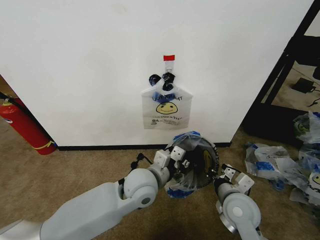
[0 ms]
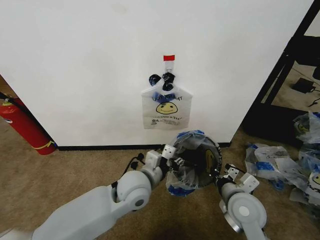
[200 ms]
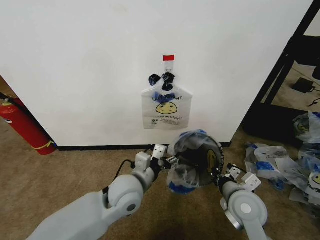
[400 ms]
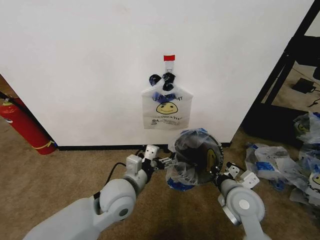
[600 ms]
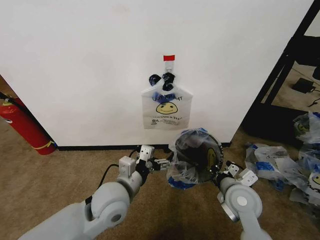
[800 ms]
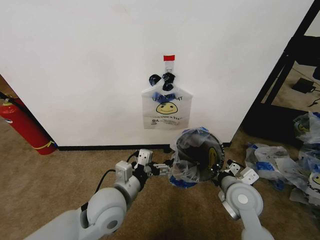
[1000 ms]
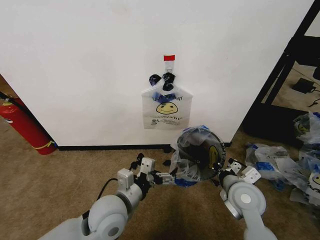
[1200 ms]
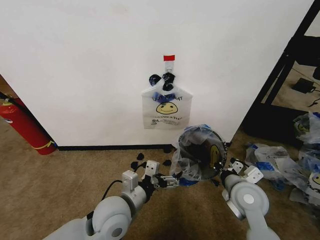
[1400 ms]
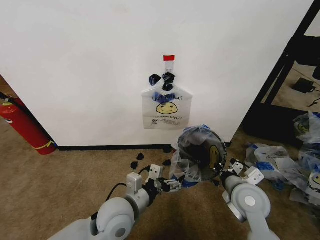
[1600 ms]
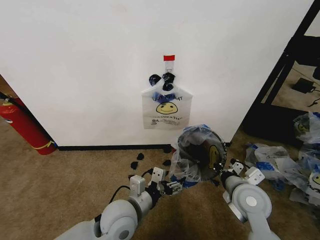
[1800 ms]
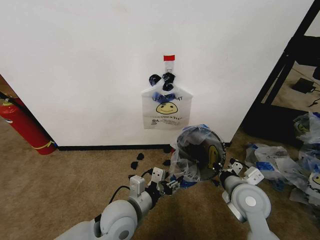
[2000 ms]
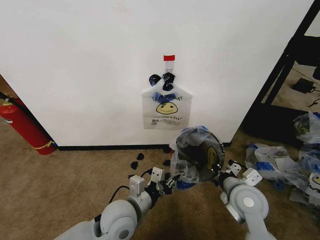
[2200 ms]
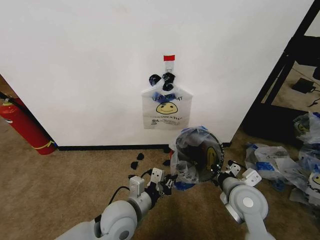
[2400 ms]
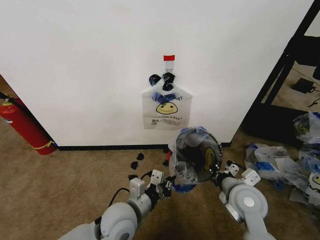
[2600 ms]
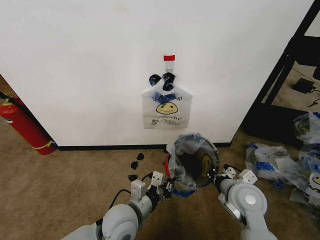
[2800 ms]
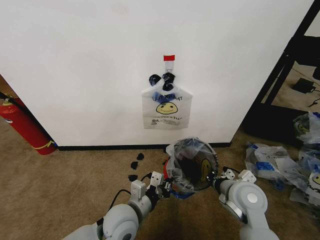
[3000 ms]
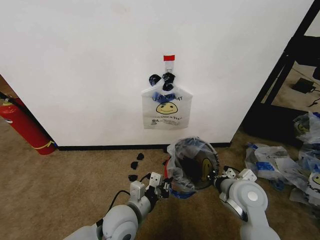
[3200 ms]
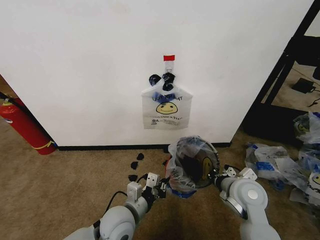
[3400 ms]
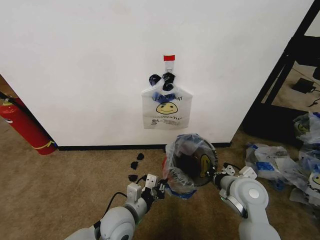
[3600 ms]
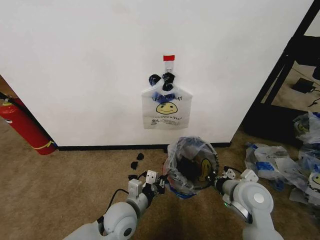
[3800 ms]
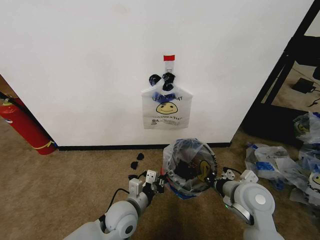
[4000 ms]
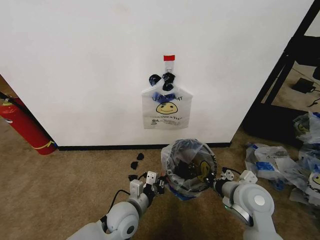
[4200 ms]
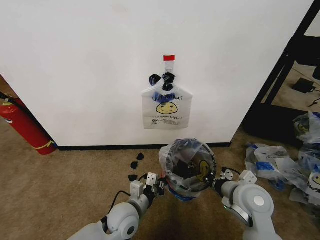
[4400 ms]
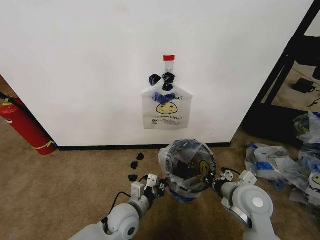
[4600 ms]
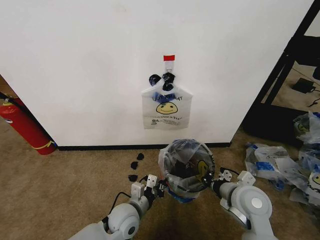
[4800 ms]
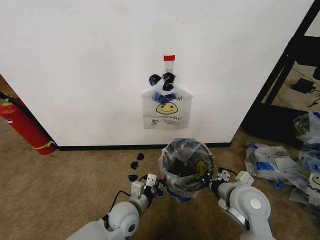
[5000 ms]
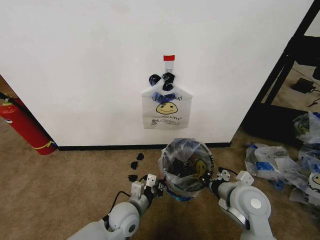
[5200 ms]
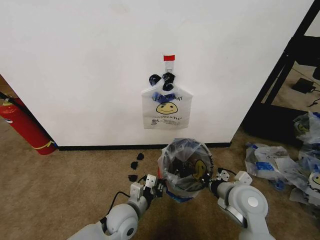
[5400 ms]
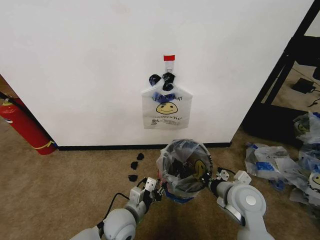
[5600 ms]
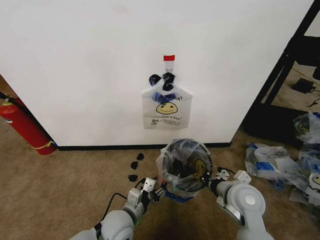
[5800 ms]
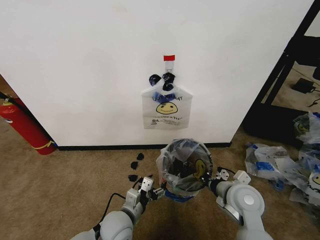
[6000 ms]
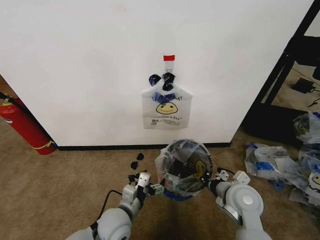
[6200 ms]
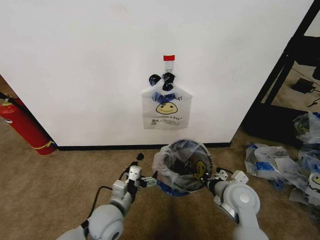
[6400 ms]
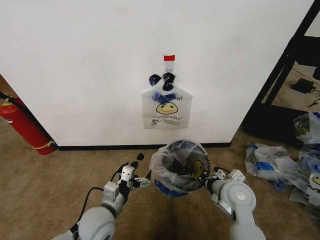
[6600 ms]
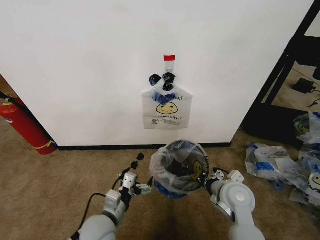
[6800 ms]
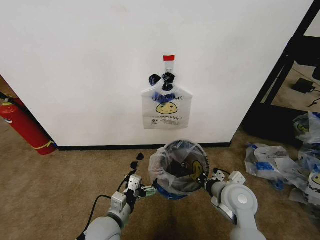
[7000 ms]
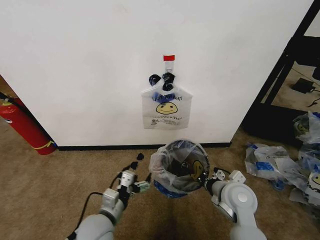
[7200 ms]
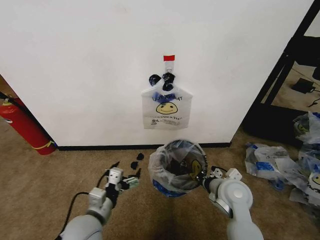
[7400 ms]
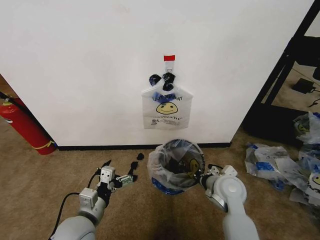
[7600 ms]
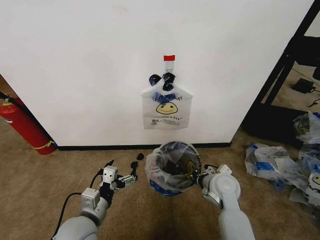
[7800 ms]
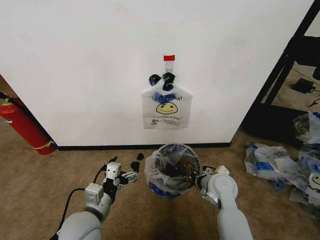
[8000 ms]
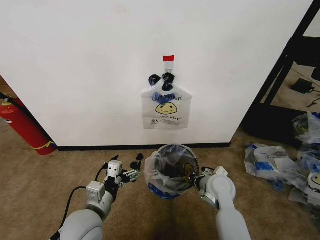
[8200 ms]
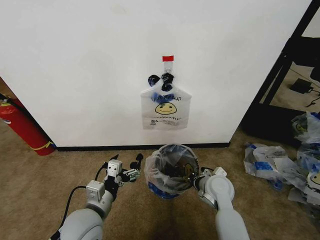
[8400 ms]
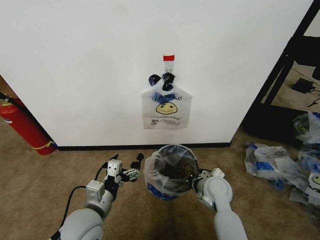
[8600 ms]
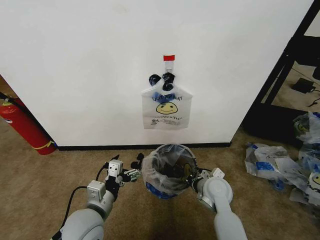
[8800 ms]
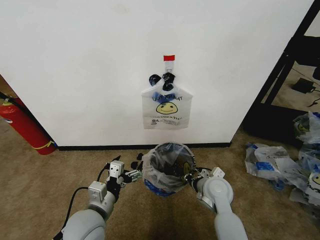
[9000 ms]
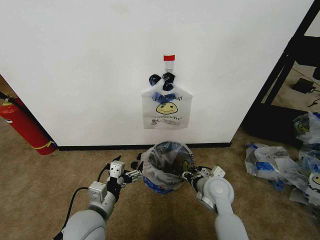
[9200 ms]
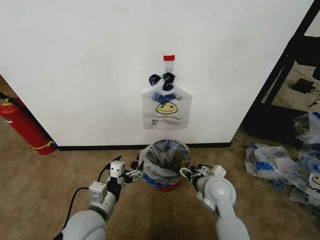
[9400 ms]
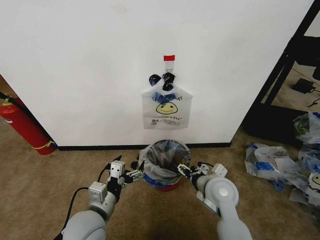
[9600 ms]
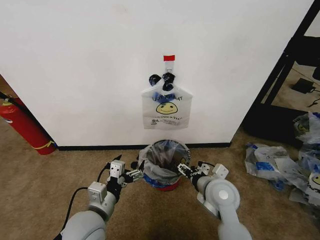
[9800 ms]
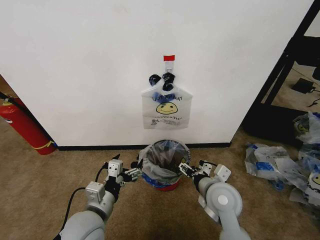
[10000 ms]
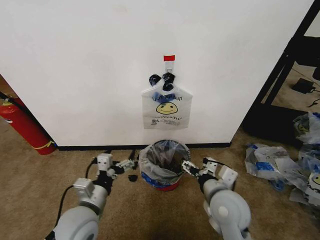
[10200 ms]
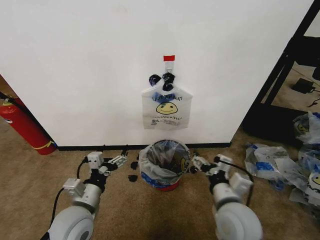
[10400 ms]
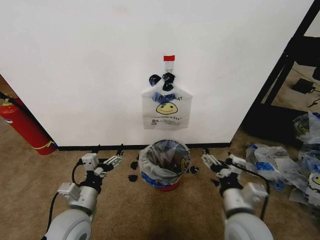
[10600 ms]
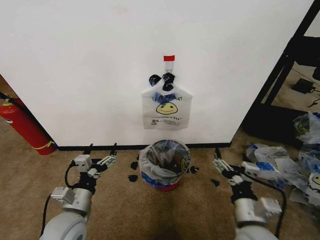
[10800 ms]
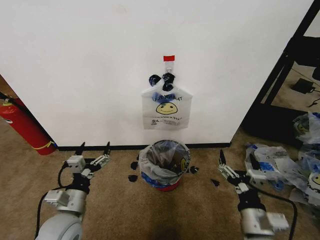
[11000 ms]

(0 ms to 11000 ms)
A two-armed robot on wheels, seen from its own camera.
Task of the whole recording: Pick up the garbage bag from the wall and place it over the trash bin.
0 ms - 1600 ms: The left gripper heads backward and to the left, covering some 10 cm, and opens up.
1600 ms - 3200 ms: The left gripper closes.
3200 ms - 4800 ms: The left gripper moves downward, some 5 cm.
4800 ms - 6200 ms: The left gripper opens.
6200 ms - 7800 ms: The left gripper shifts roughly 10 cm to the left and upward. Meanwhile the right gripper goes some 5 cm forward.
7800 ms - 9400 ms: The right gripper opens.
9400 ms - 11000 ms: The left gripper goes roughly 10 cm to the left; the right gripper is displaced backward by approximately 15 cm.

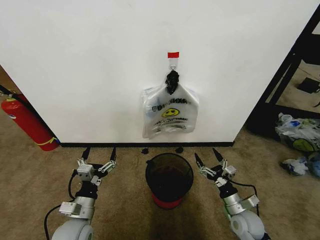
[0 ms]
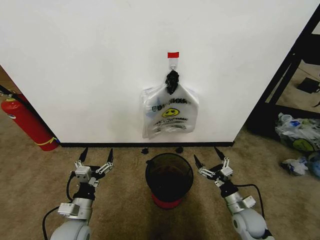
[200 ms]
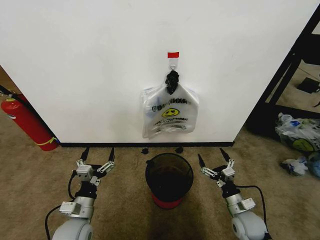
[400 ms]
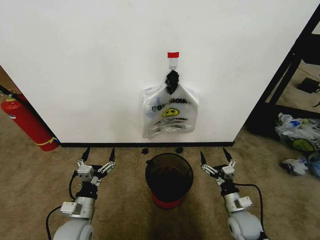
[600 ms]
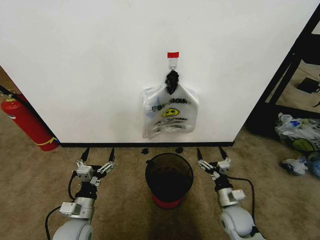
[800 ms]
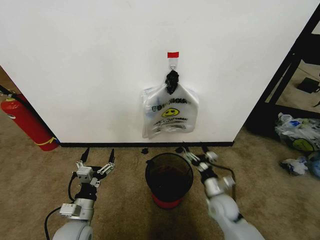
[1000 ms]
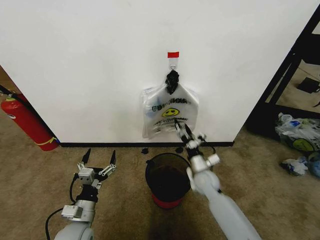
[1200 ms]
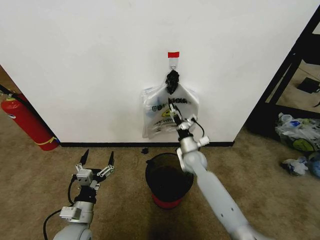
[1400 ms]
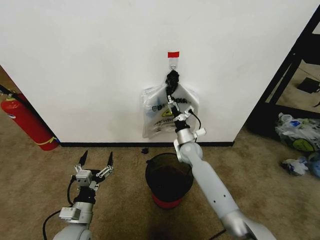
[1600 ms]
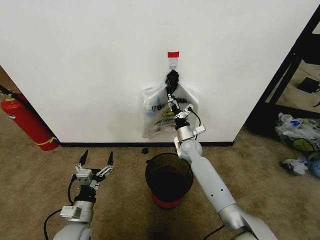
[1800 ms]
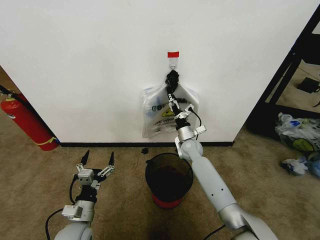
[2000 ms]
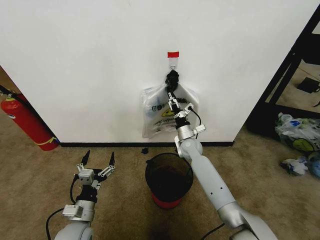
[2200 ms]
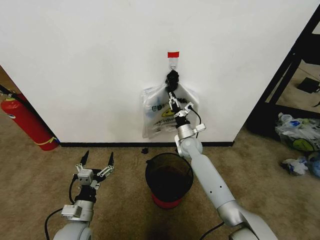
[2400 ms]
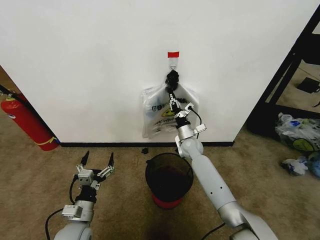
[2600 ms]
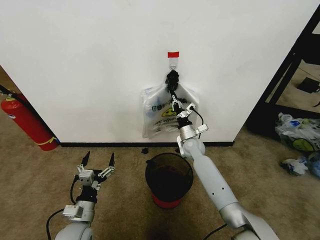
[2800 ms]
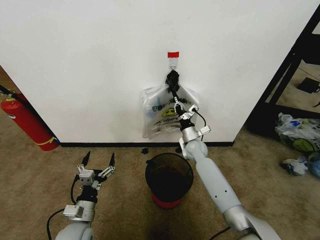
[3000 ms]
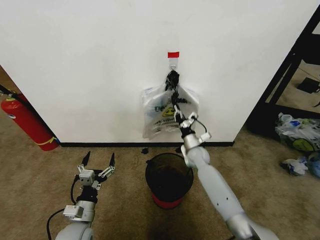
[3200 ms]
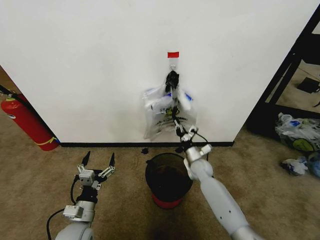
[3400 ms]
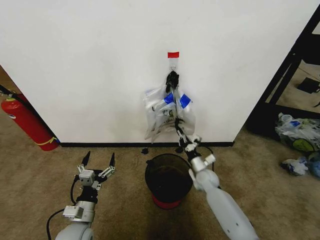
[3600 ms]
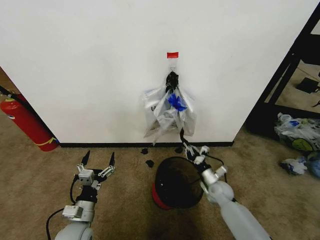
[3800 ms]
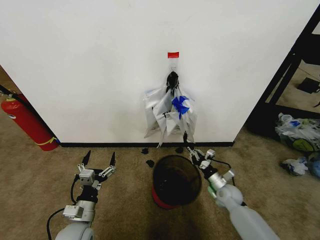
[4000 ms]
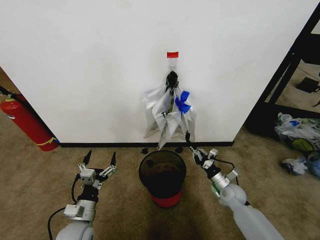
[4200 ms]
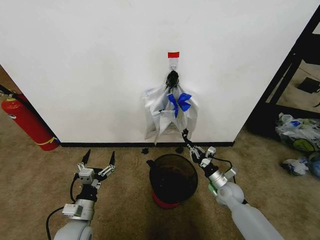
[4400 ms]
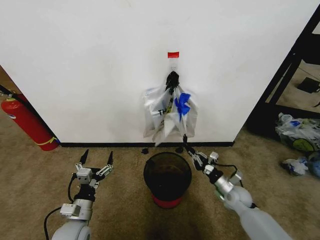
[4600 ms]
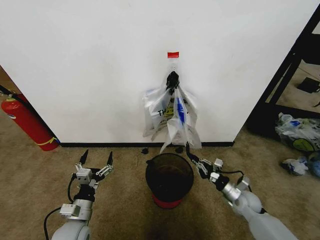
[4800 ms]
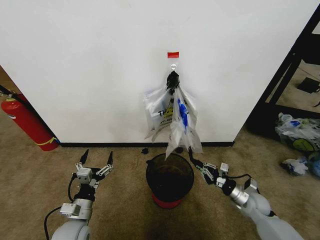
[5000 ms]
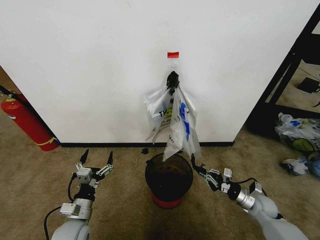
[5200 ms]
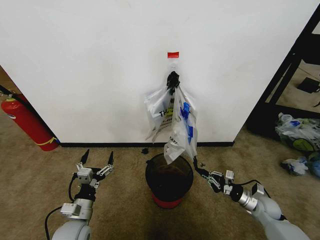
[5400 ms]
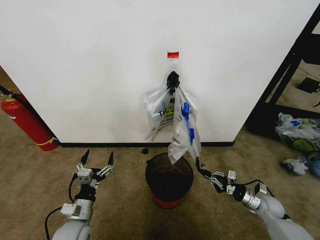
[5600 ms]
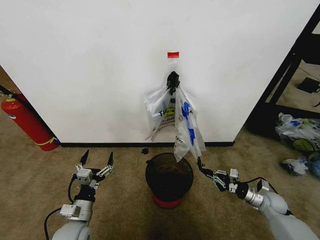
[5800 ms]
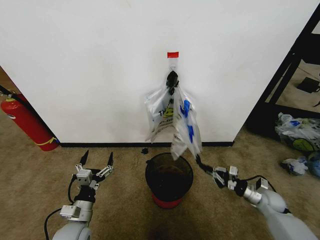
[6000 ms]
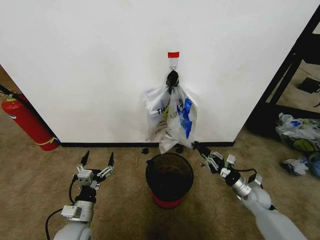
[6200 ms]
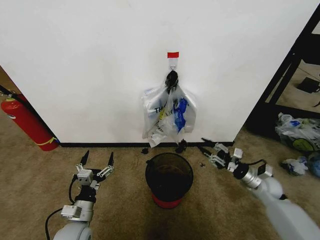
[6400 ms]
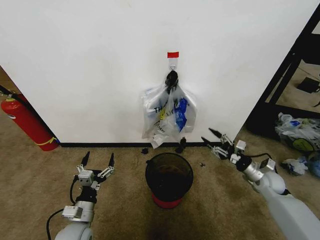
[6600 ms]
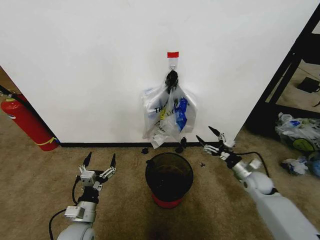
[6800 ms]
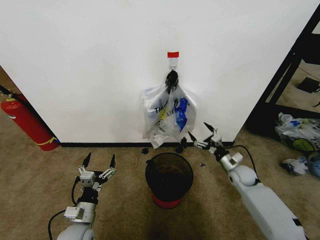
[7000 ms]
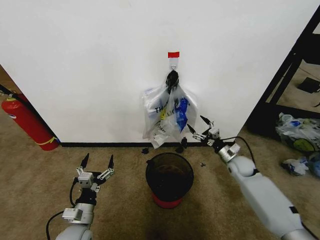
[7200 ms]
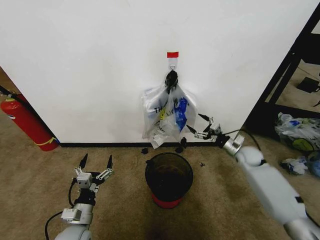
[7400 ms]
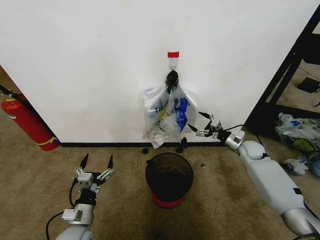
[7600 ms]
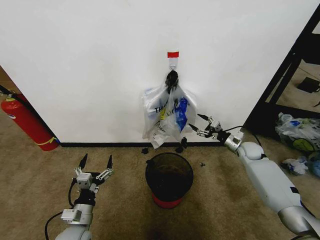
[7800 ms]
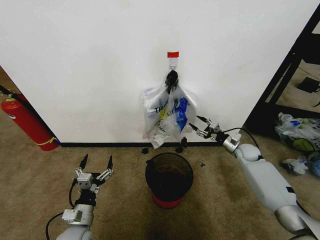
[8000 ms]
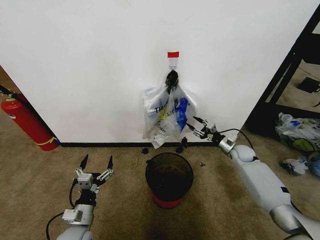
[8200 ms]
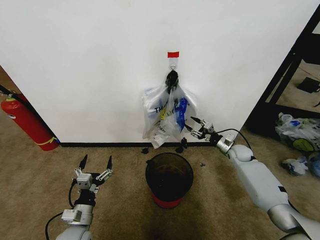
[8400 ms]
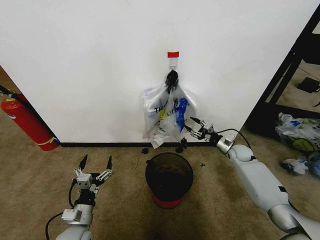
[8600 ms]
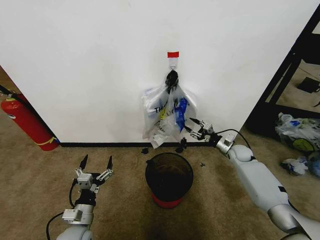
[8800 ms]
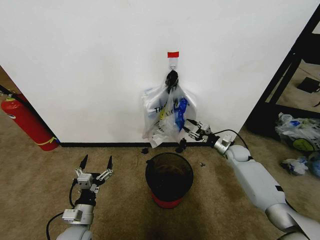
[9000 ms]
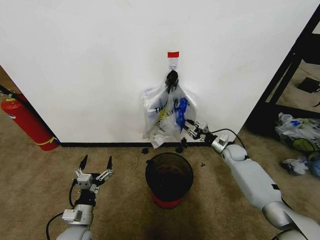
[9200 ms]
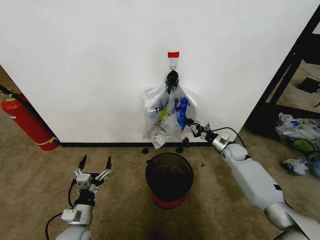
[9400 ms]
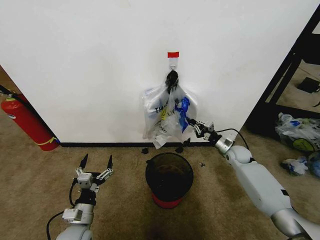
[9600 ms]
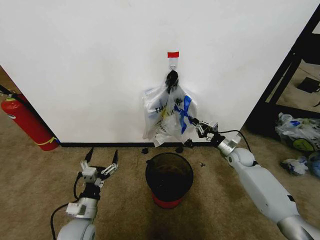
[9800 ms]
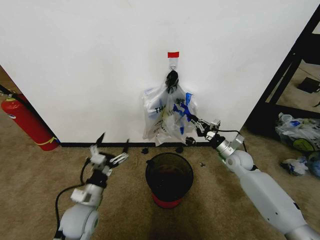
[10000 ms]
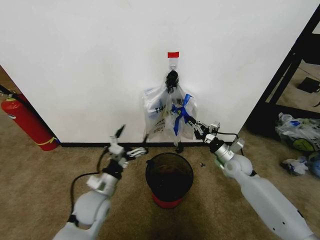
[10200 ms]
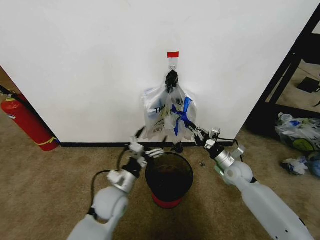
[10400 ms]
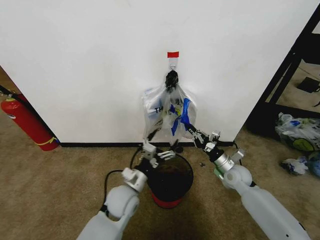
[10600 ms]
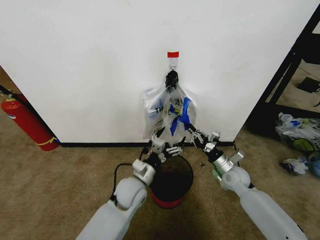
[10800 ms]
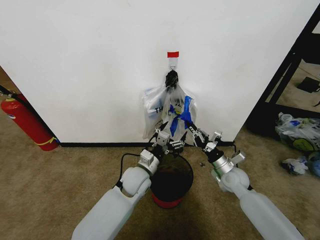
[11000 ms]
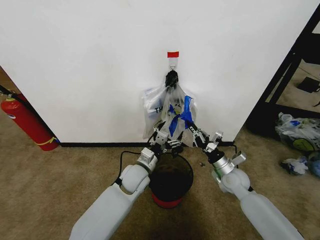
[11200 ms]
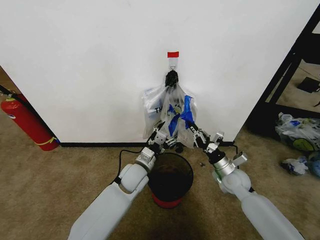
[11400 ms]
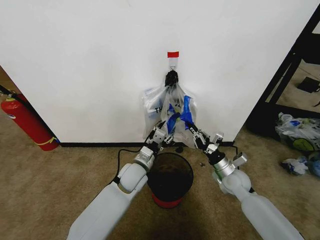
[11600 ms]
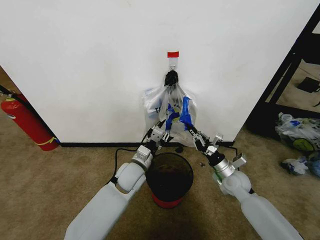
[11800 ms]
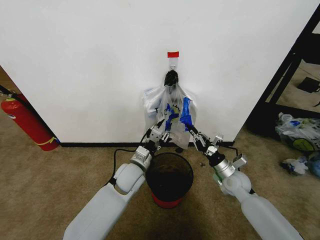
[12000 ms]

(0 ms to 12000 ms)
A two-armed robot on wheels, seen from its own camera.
Task of the whole recording: Pick up the garbage bag from the wall and place it over the trash bin.
1600 ms - 3000 ms: The right gripper closes up.
3000 ms - 4400 ms: The right gripper is displaced backward, to the right and downward by approximately 20 cm.
4400 ms - 6000 ms: The right gripper shifts roughly 15 cm to the right.
6000 ms - 7600 ms: The right gripper shifts approximately 20 cm forward and upward, and opens its fingers.
7600 ms - 9000 ms: The right gripper ends up roughly 5 cm from where it was, and closes up.
9000 ms - 10400 ms: The right gripper moves backward, approximately 10 cm, and closes up. Meanwhile the left gripper moves to the right, forward and upward, some 15 cm.
10400 ms - 12000 ms: The left gripper travels forward and to the right by roughly 10 cm, and closes up.
